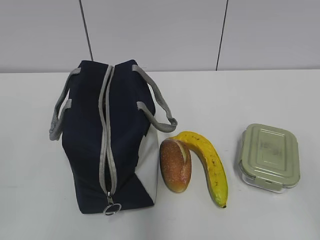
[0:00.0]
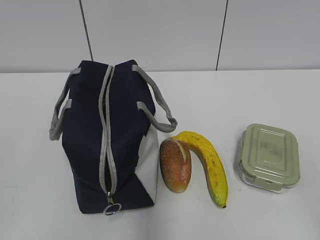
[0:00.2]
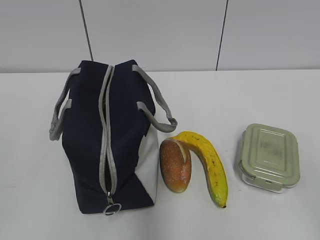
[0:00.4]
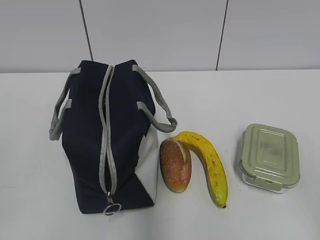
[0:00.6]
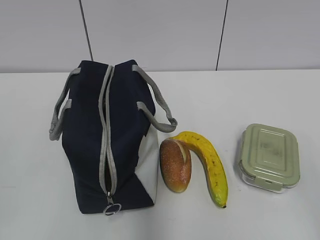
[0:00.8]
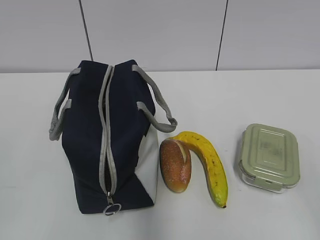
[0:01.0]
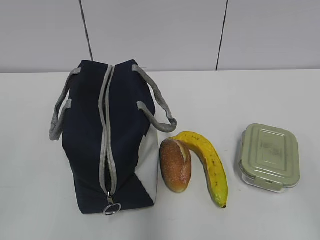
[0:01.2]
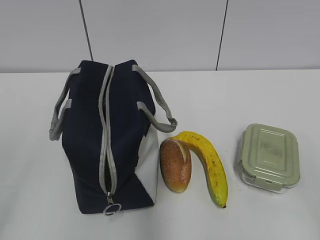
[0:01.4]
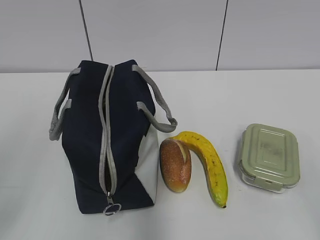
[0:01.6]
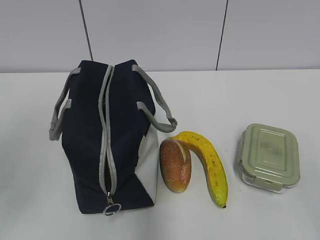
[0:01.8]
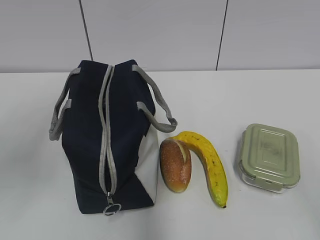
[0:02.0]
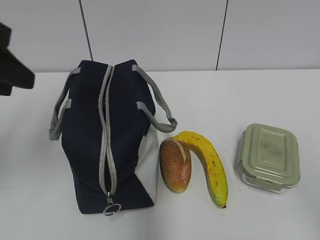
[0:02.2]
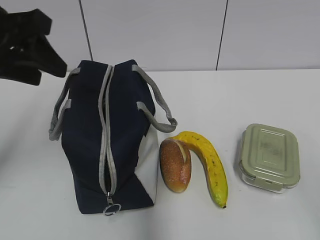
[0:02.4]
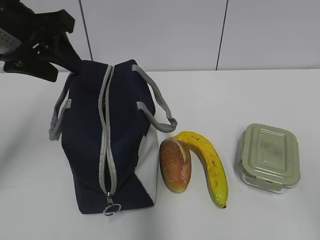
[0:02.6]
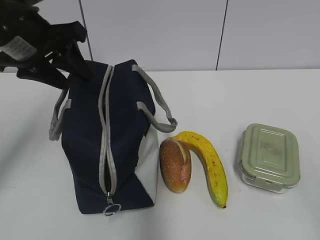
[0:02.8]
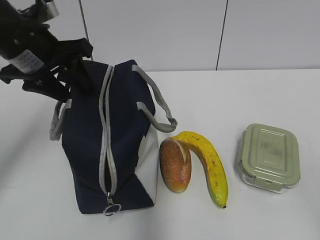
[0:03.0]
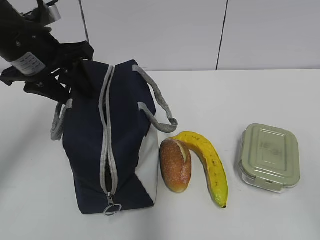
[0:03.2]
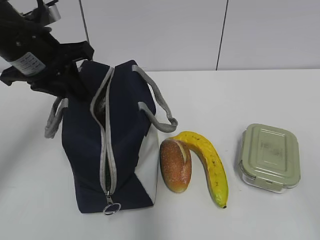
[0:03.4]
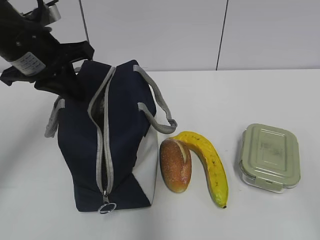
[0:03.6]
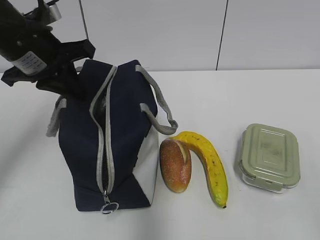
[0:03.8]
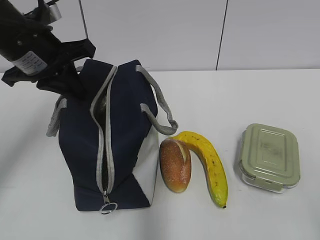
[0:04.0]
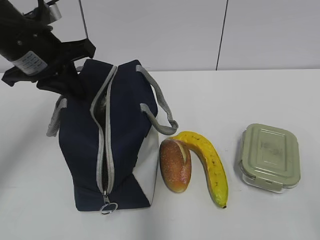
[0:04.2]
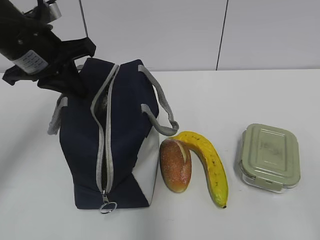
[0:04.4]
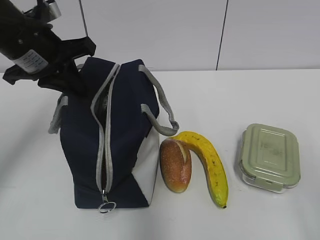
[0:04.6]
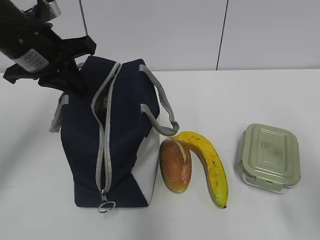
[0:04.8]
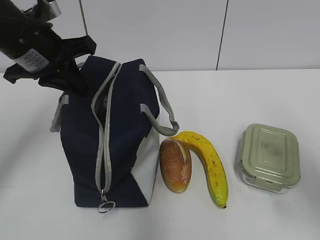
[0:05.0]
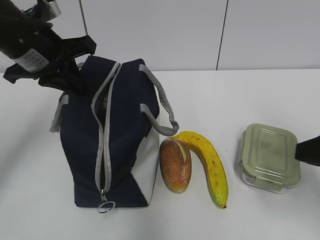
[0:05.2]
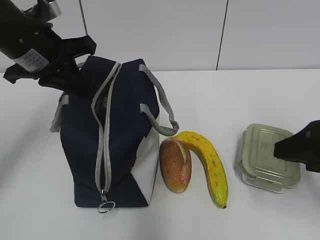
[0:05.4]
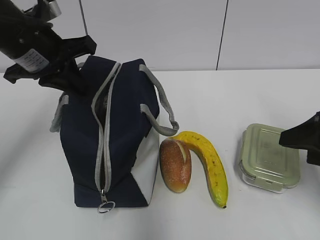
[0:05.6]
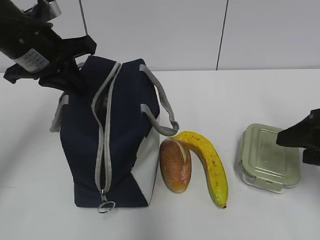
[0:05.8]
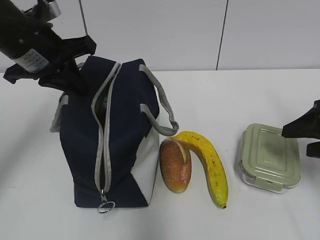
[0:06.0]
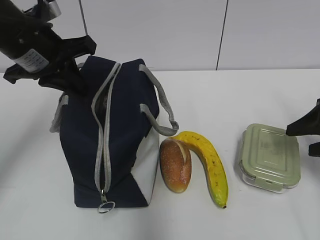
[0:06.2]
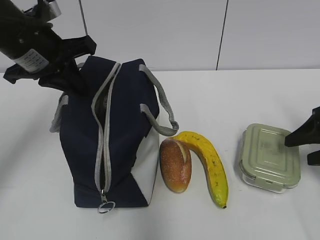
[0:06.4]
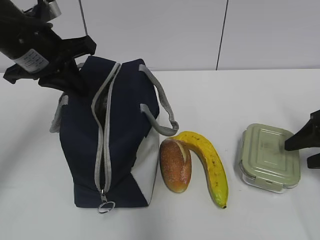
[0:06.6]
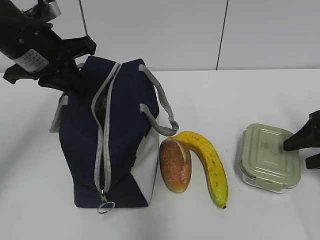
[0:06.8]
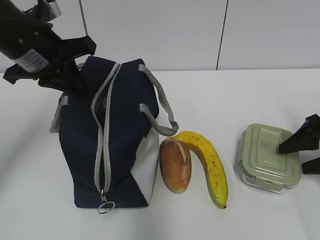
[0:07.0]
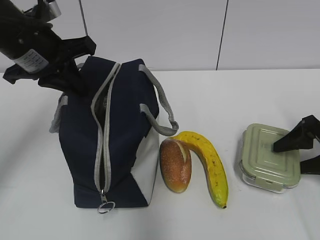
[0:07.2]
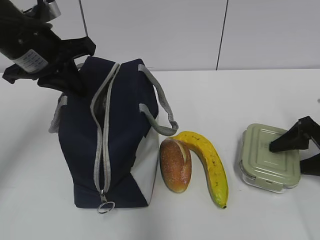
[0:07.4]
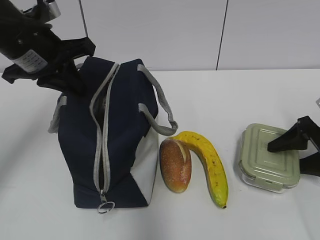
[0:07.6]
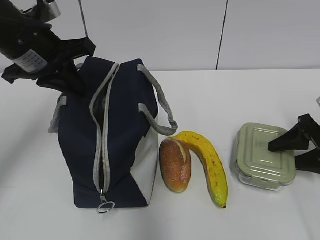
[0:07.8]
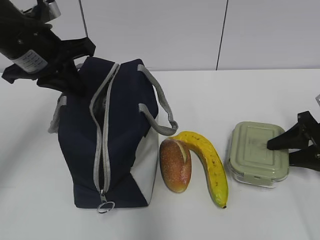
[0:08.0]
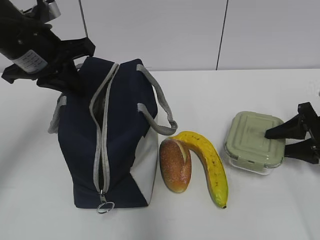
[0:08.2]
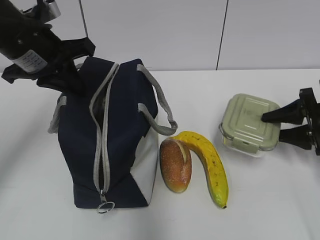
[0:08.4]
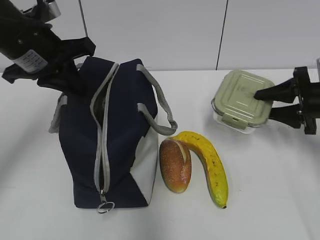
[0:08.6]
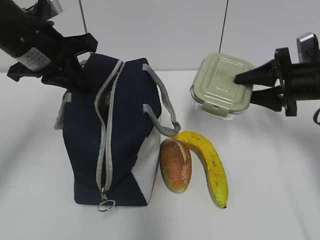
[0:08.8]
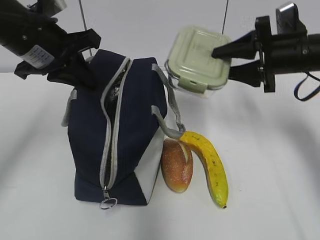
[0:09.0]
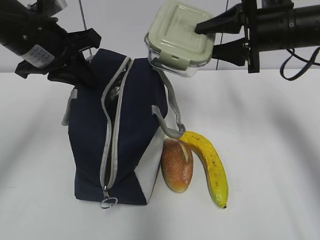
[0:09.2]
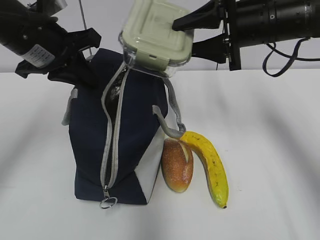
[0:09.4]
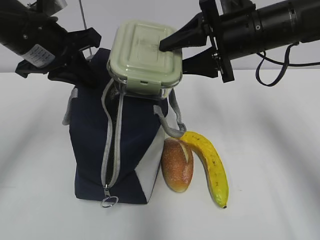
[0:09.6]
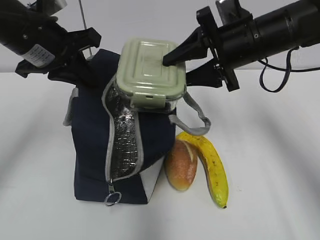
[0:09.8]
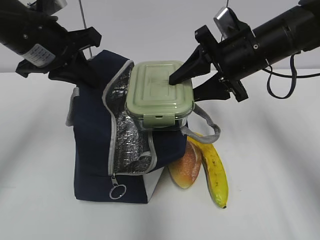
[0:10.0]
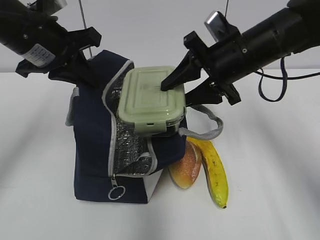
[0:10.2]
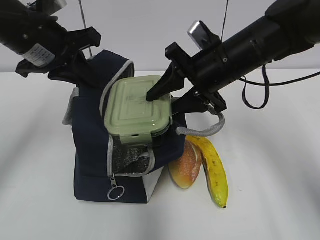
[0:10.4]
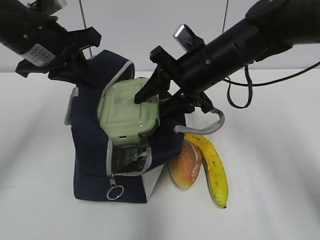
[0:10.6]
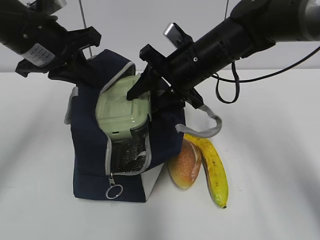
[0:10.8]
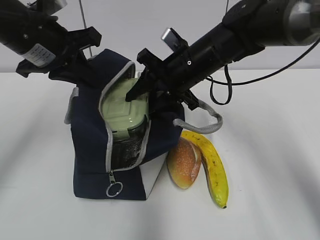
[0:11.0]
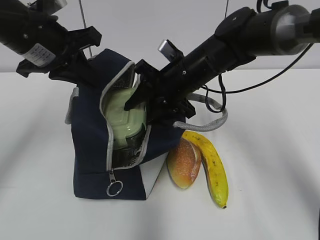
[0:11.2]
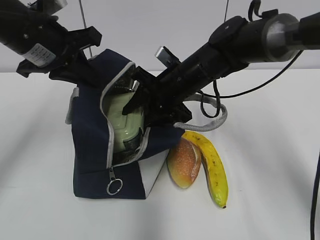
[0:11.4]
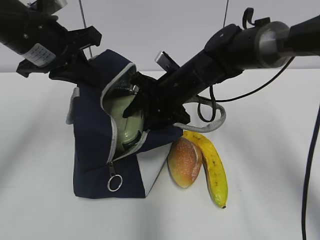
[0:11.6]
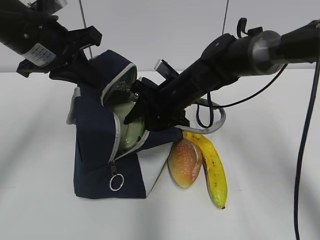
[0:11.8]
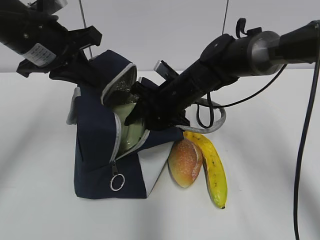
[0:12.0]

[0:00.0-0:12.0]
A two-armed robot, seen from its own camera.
Step, 0:00.0 to 0:07.8: Grab the lunch box with your right hand.
0:01.6 to 0:03.0: The left gripper travels forward by some 25 cm.
0:03.0 to 0:04.4: The left gripper closes.
0:04.4 to 0:06.0: The right gripper goes some 25 cm forward.
0:06.0 to 0:07.6: The right gripper moves downward and forward, about 10 cm.
0:07.6 to 0:09.0: The right gripper is displaced upward, to the left and forward by approximately 15 cm.
0:09.0 to 0:10.4: The right gripper shifts roughly 10 cm to the left.
0:10.4 to 0:12.0: The right gripper travels downward, to the left and forward by approximately 10 cm.

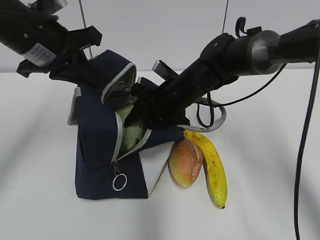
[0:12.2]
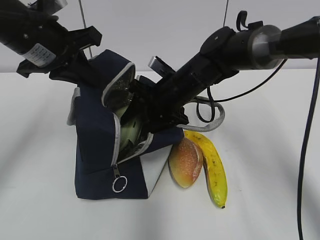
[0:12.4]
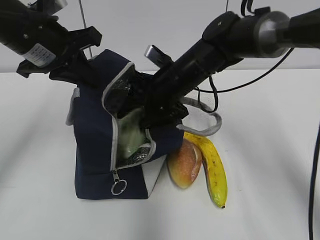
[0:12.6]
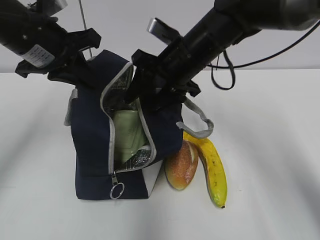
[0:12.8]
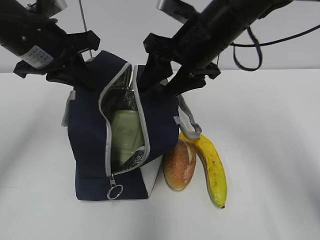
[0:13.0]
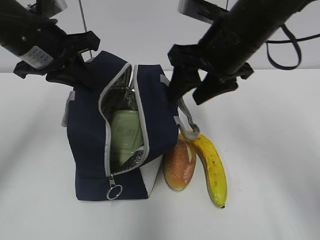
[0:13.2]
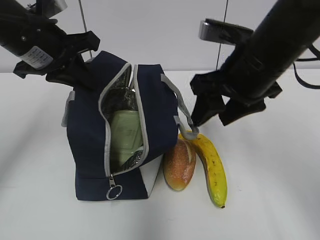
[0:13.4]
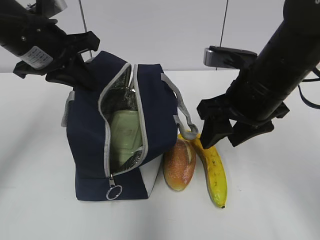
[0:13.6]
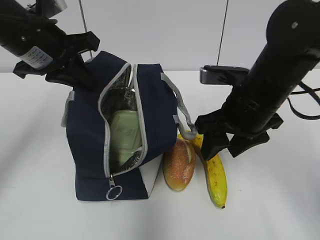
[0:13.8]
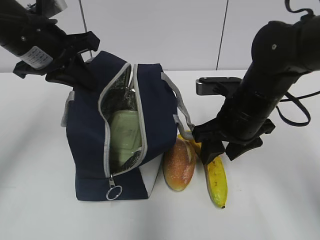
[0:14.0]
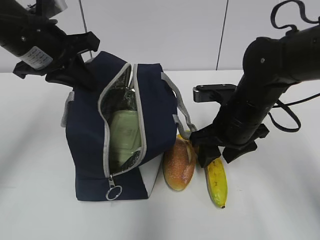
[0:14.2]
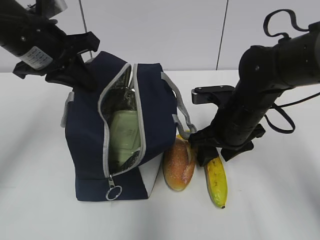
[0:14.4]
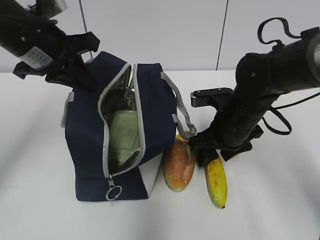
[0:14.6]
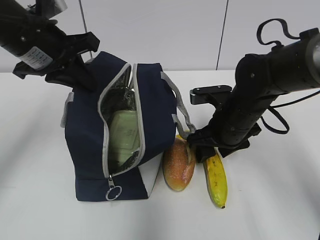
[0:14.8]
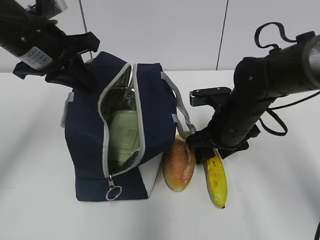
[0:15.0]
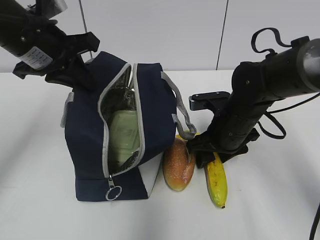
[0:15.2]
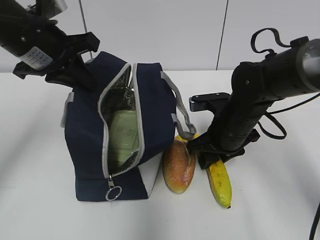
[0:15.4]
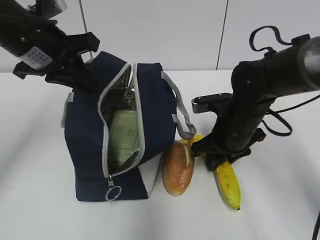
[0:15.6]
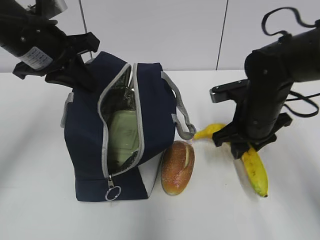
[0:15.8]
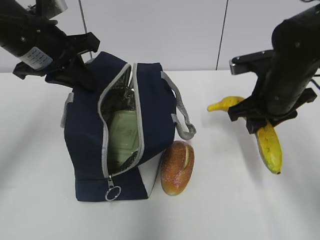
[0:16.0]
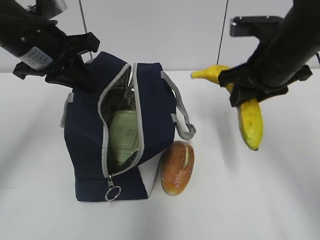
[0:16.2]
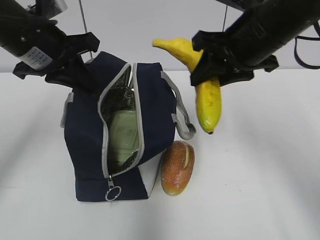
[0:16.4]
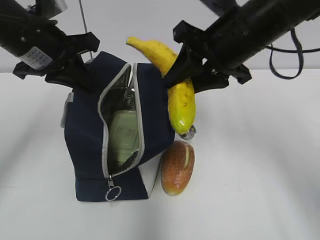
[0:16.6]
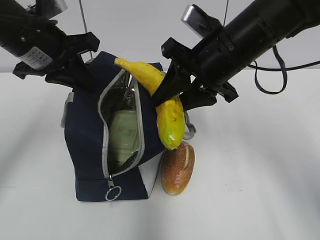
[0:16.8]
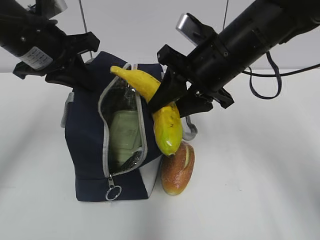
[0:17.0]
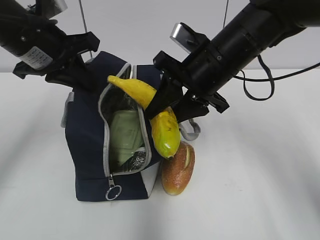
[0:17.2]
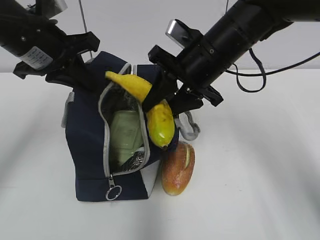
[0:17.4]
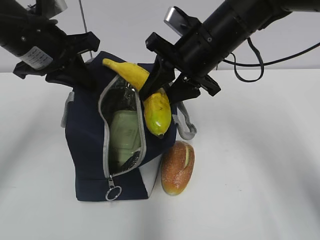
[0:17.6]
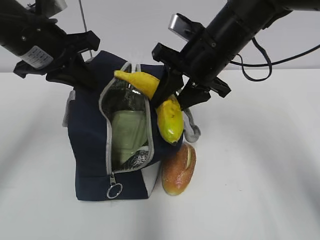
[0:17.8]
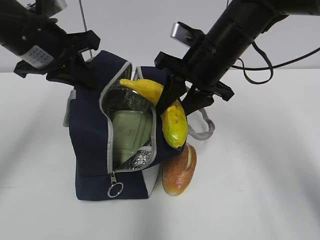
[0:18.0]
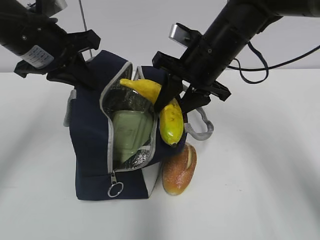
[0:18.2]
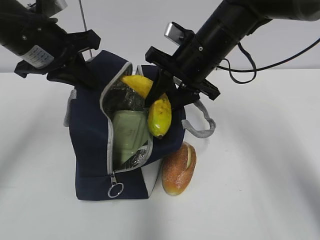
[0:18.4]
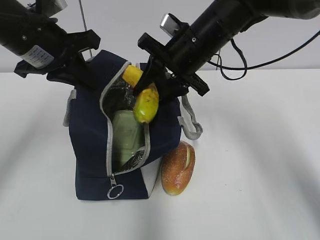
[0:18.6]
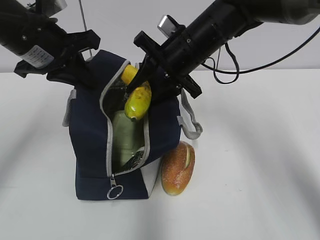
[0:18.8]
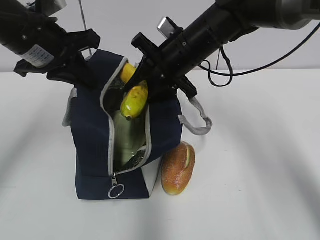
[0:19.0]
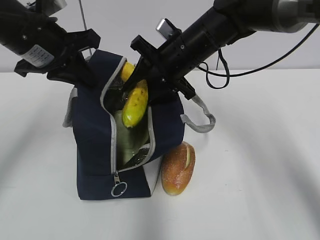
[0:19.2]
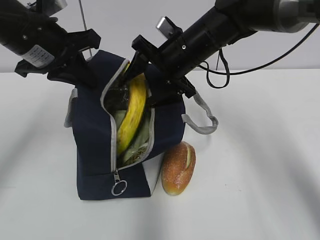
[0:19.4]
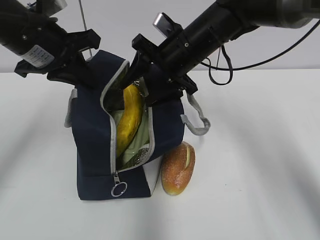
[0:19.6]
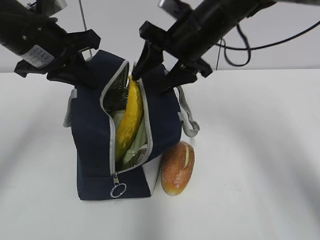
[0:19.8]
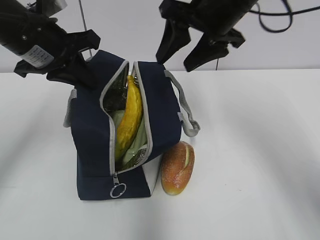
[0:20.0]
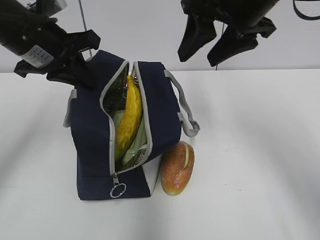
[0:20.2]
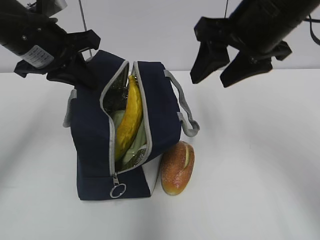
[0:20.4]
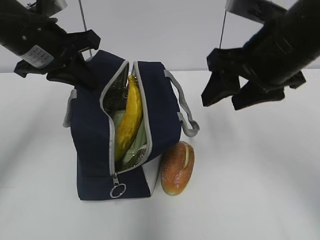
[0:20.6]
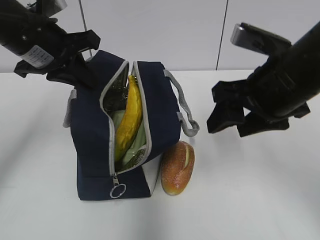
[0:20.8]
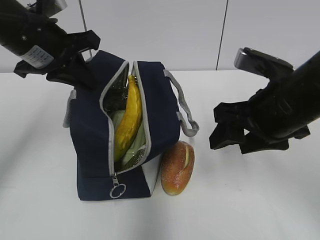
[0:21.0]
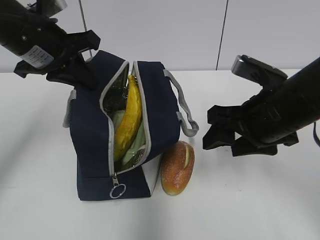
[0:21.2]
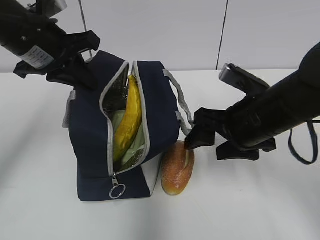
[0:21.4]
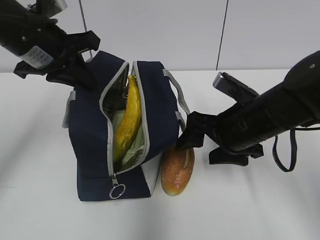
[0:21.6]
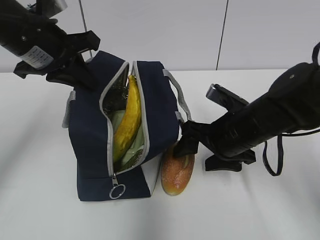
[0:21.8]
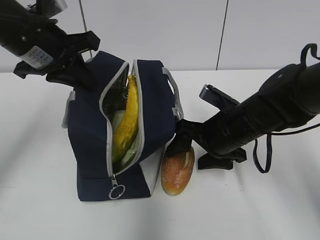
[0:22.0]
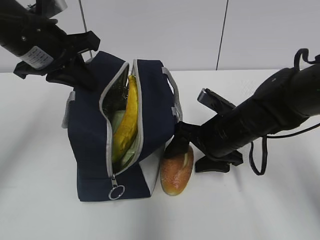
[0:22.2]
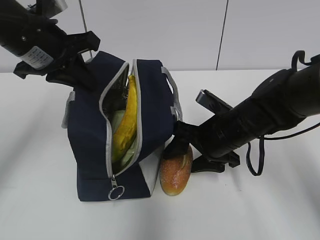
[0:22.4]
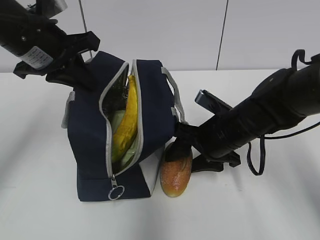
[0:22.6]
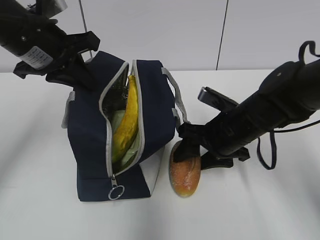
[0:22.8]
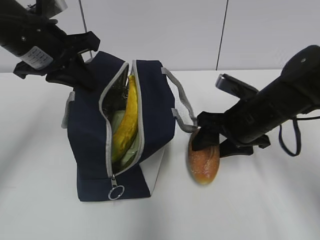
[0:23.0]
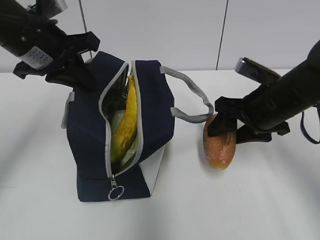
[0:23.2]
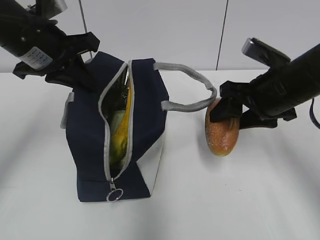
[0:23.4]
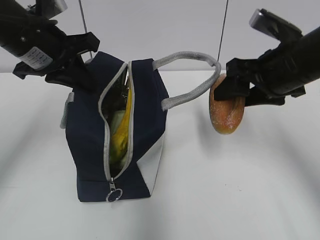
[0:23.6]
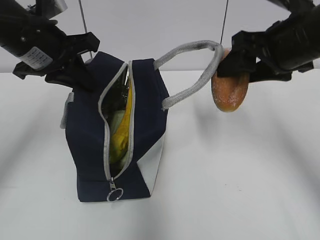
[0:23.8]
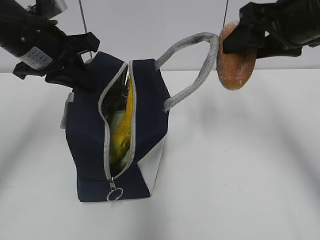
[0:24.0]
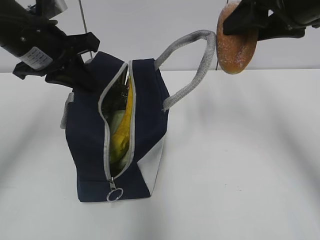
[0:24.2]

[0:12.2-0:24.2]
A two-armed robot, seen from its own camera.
Step, 0:12.8 to 0:15.4: Grab the banana with your right hand.
Step, 0:15.8 to 0:19.4: Place it into the bag with your right hand.
Step, 0:19.6 to 0:22.8: Grab the bread with your right hand.
0:12.2 to 0:13.8: The right gripper travels backward, to the right and upward by approximately 15 cm.
0:13.8 to 0:15.2: The right gripper goes about 10 cm downward.
0:15.2 to 0:16.6: The right gripper shifts about 15 cm upward.
0:16.6 to 0:18.2: The right gripper moves about 5 cm.
0:18.2 to 0:19.8: The grippers move only a little.
0:19.8 to 0:21.2: The right gripper goes approximately 15 cm backward, to the right and downward.
0:21.2 to 0:22.6: The right gripper goes approximately 10 cm downward and forward.
0:22.6 to 0:24.2: The right gripper shifts roughly 20 cm upward.
